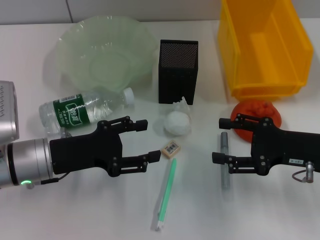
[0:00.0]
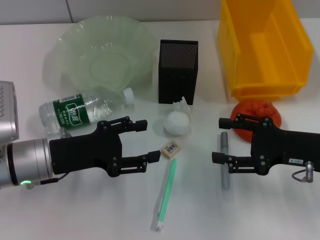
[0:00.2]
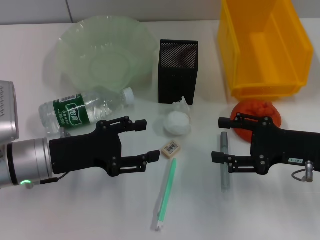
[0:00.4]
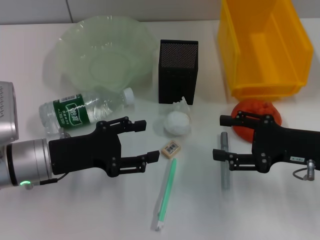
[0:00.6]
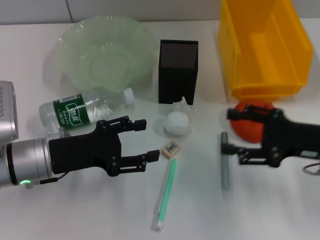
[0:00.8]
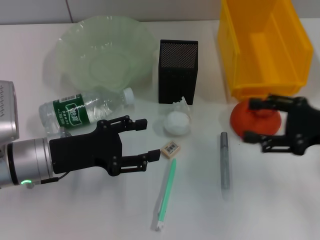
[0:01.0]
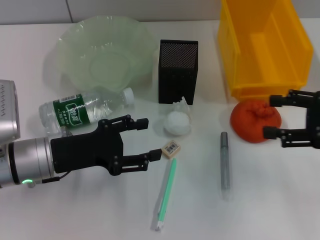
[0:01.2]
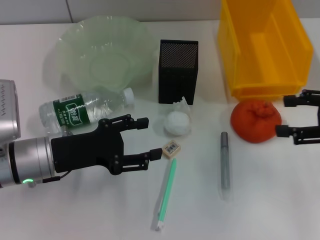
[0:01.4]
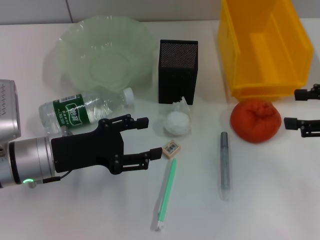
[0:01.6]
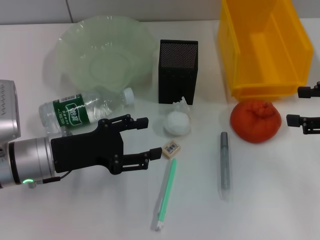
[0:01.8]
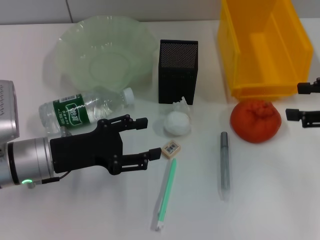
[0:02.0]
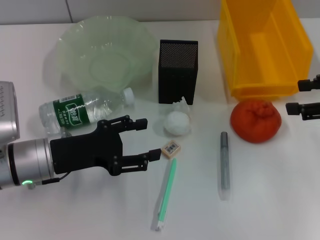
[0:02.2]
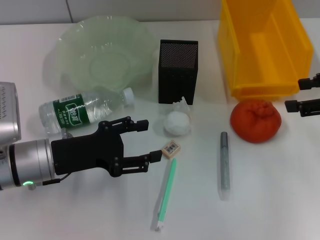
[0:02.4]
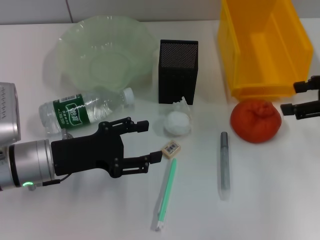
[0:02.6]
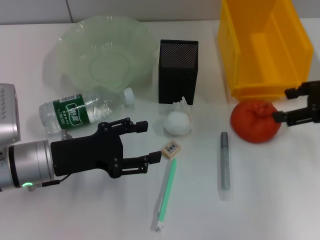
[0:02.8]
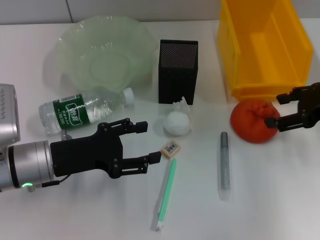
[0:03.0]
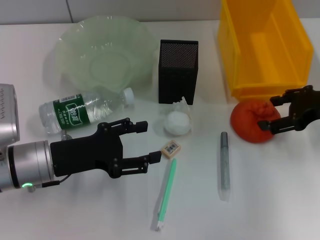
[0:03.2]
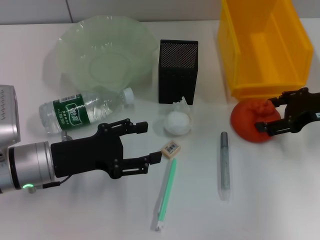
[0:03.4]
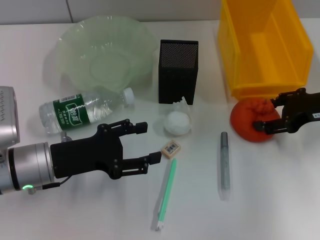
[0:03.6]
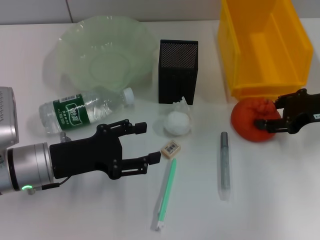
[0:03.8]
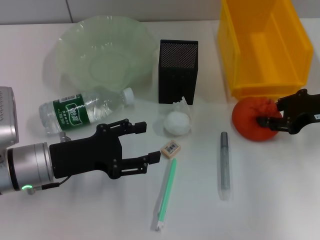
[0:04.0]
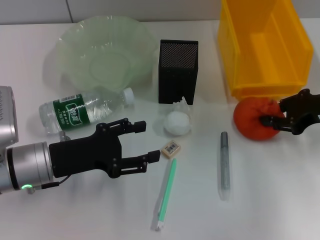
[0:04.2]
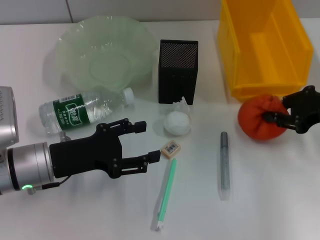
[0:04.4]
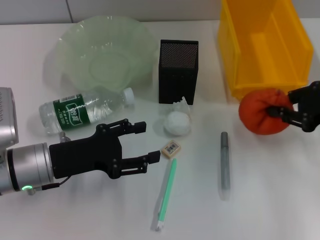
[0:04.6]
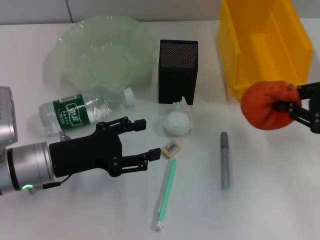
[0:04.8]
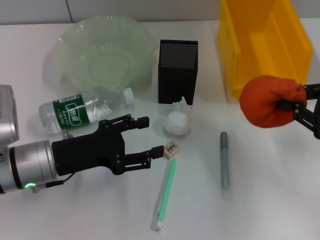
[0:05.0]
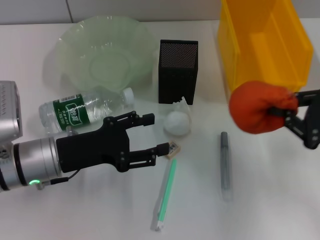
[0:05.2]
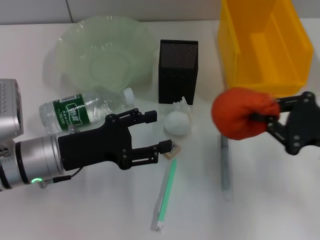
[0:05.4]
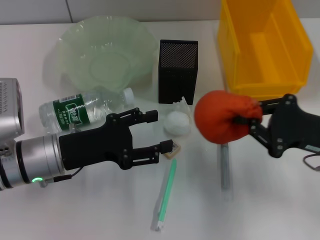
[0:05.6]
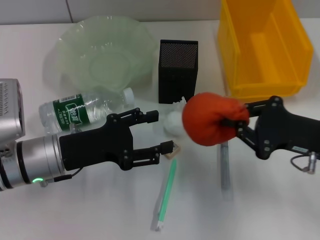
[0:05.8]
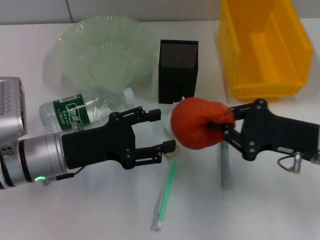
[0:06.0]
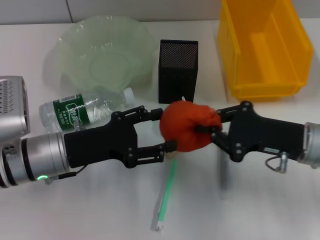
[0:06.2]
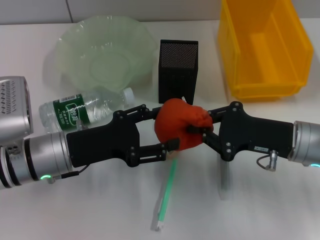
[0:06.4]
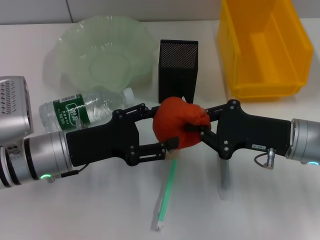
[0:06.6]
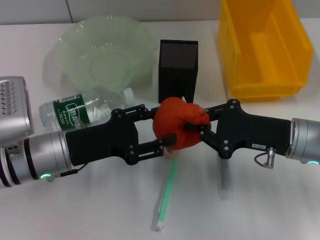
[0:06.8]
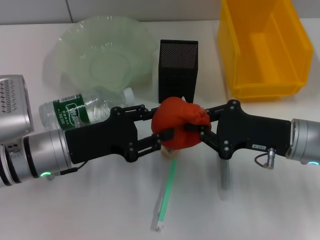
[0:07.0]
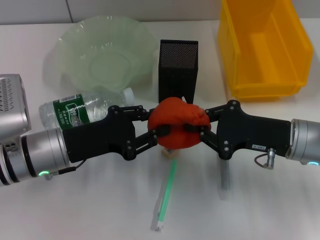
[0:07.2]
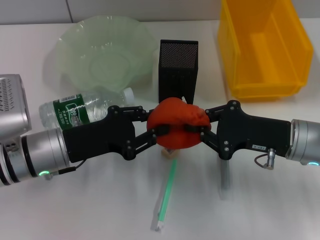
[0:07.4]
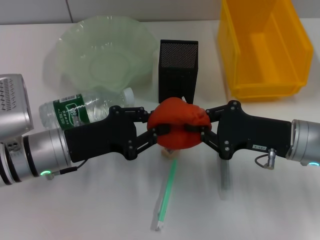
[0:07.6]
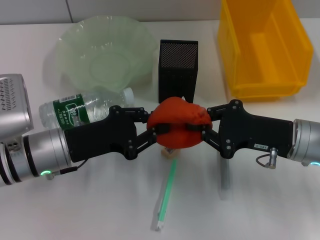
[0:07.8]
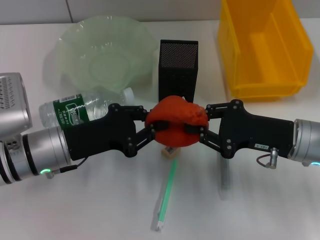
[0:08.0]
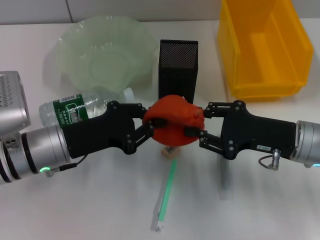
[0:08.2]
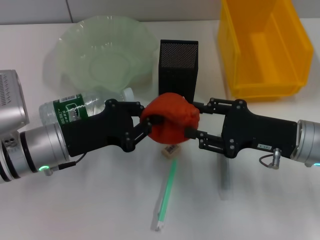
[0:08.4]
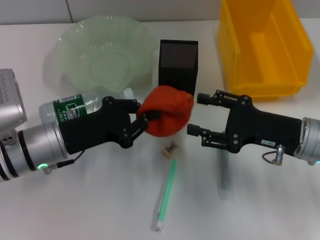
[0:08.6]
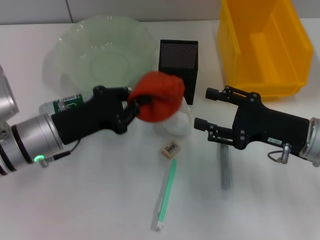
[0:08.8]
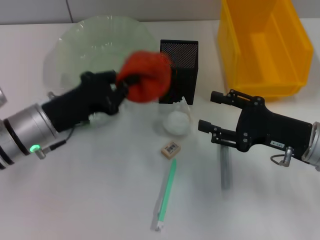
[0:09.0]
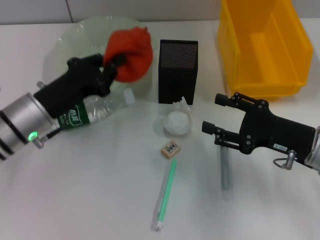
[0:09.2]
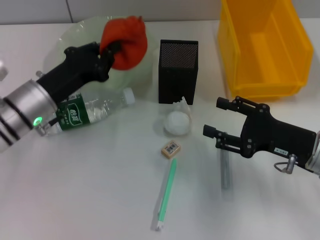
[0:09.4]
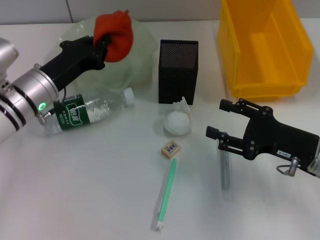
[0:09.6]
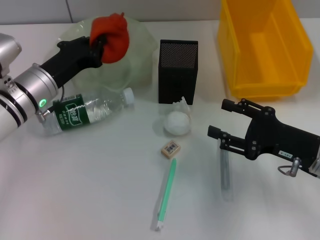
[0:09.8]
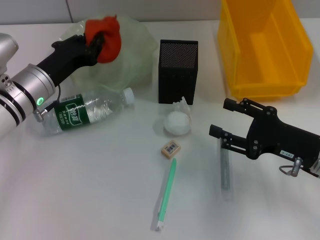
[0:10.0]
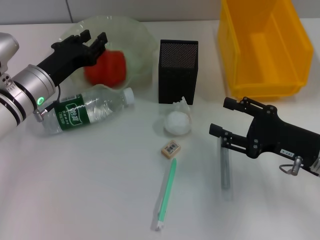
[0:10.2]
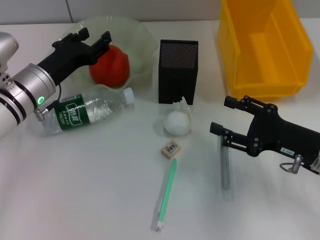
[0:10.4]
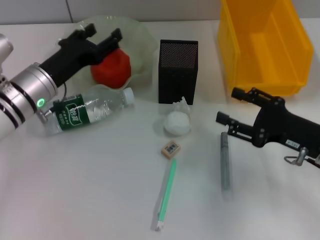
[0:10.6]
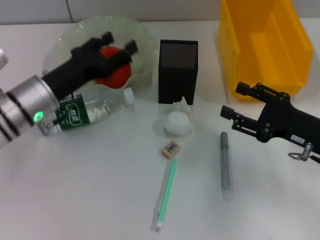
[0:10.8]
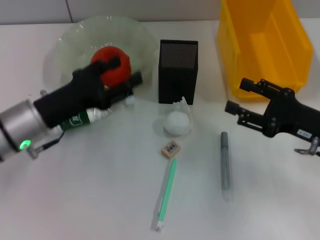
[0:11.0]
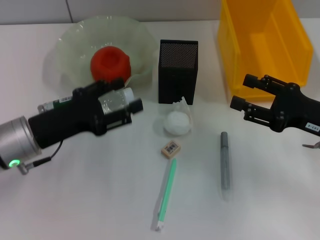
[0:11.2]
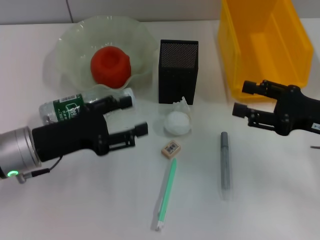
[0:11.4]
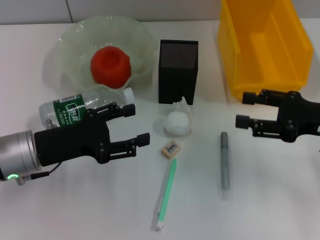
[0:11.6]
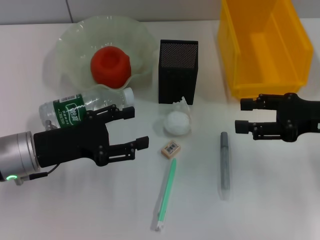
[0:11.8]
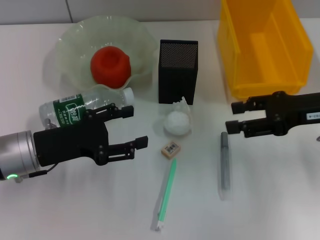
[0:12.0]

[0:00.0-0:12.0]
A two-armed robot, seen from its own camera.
Step, 0:00.0 to 0:04.2: Grab the orange with the right hand.
Step, 0:04.4 to 0:08.8: Pass the orange from the right hand to the left hand.
Step, 0:09.0 to 0:10.8: Place the orange into the fruit bowl with the left hand.
0:00.0 to 0:01.6: The right gripper goes roughly 10 cm to the right and upward.
0:01.6 to 0:03.0: The right gripper shifts roughly 5 cm forward.
0:03.0 to 0:04.4: The right gripper closes.
0:04.4 to 0:06.0: The right gripper moves to the left, backward and downward, roughly 10 cm.
0:06.0 to 0:07.6: The left gripper closes.
0:07.6 to 0:09.0: The right gripper opens.
0:09.0 to 0:10.4: The left gripper goes roughly 5 cm forward, and opens.
0:10.4 to 0:12.0: The right gripper shifts about 10 cm upward and forward. Meanwhile the left gripper travels backward by some 10 cm, and opens its fingers.

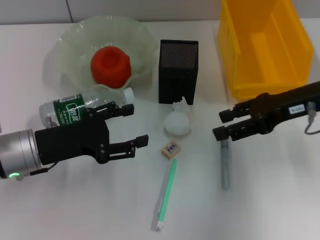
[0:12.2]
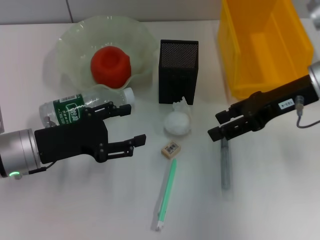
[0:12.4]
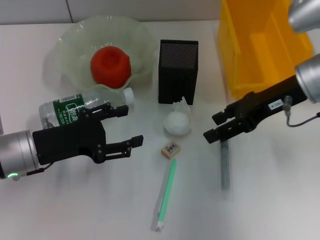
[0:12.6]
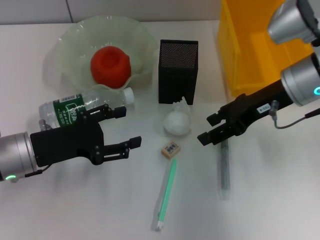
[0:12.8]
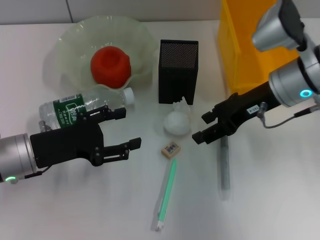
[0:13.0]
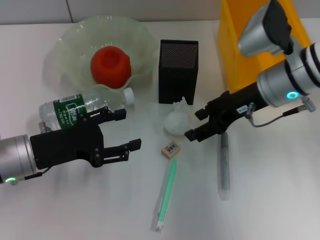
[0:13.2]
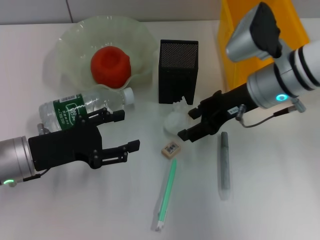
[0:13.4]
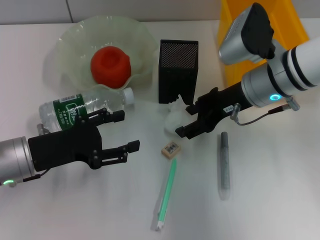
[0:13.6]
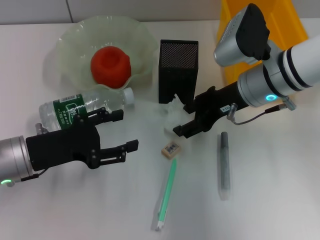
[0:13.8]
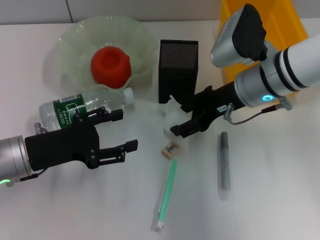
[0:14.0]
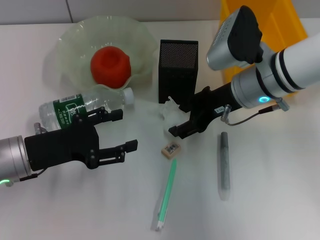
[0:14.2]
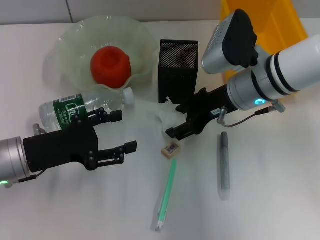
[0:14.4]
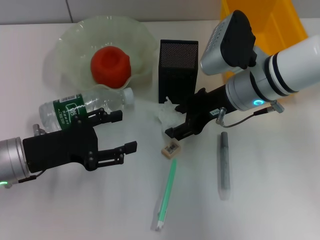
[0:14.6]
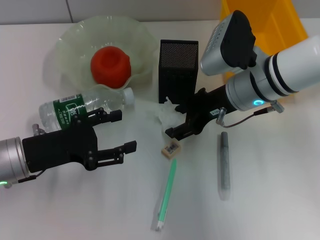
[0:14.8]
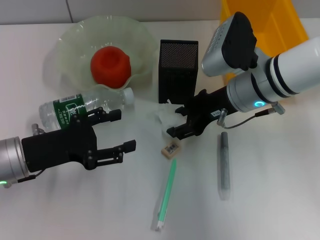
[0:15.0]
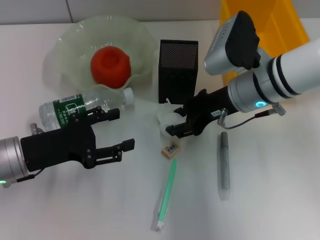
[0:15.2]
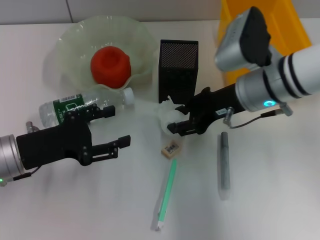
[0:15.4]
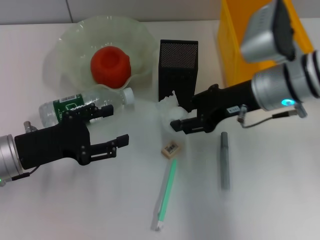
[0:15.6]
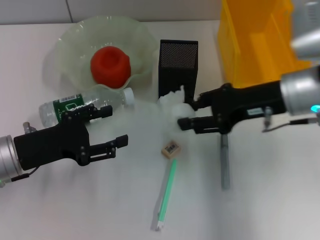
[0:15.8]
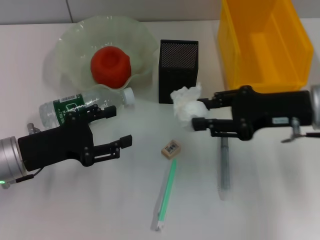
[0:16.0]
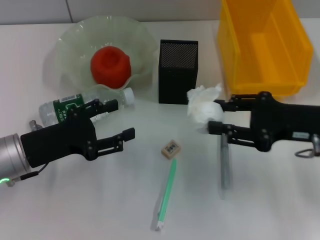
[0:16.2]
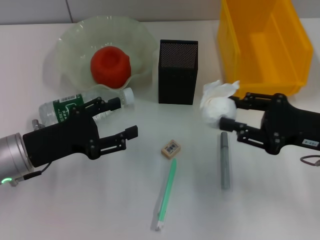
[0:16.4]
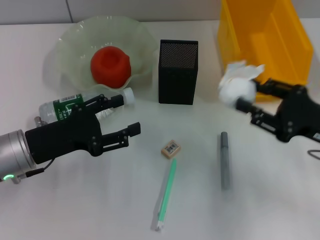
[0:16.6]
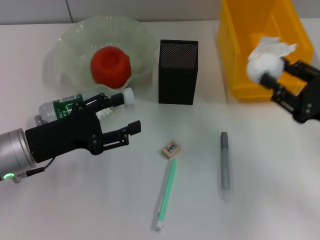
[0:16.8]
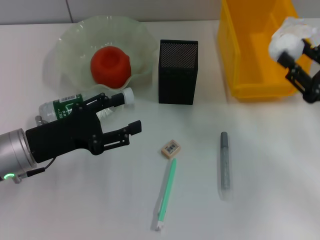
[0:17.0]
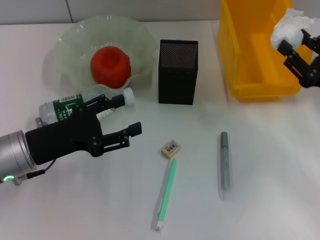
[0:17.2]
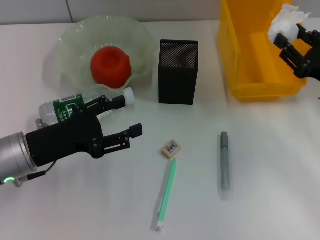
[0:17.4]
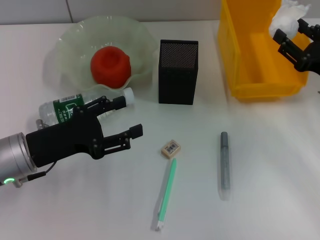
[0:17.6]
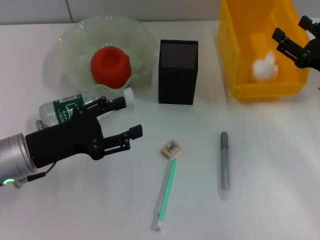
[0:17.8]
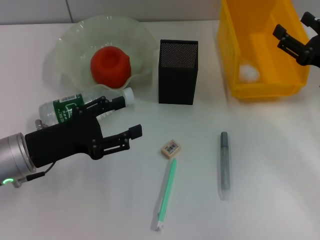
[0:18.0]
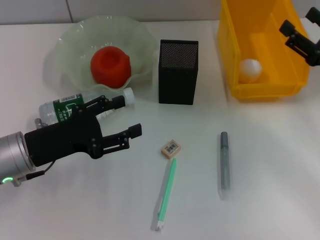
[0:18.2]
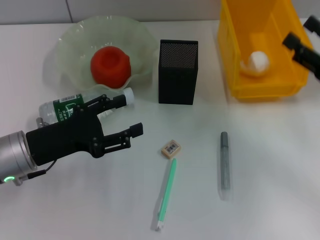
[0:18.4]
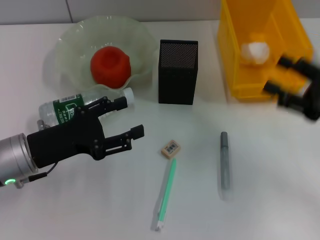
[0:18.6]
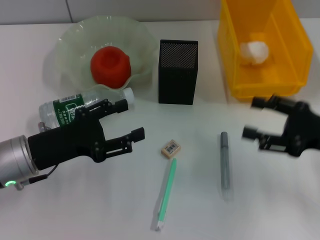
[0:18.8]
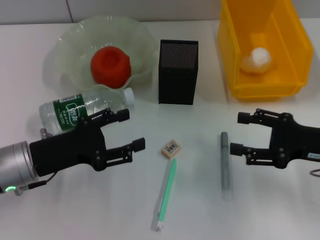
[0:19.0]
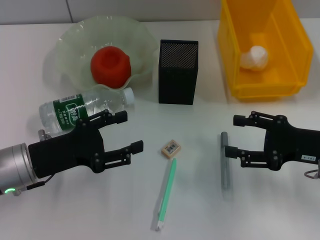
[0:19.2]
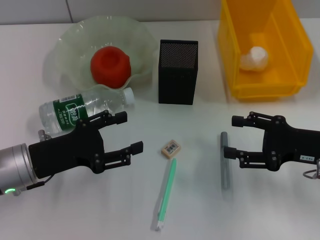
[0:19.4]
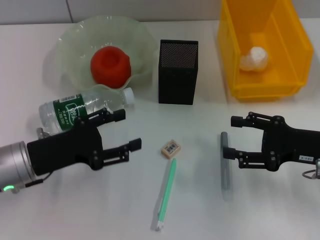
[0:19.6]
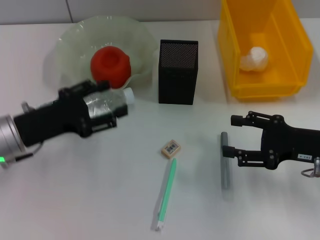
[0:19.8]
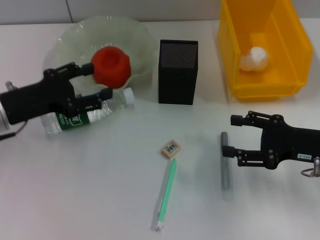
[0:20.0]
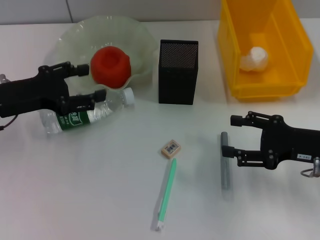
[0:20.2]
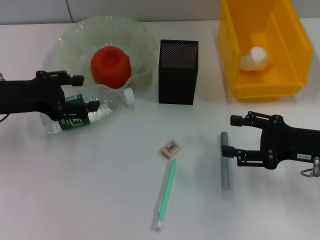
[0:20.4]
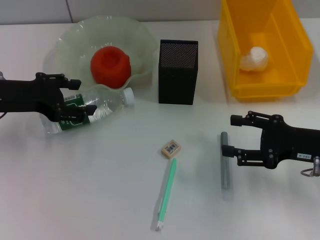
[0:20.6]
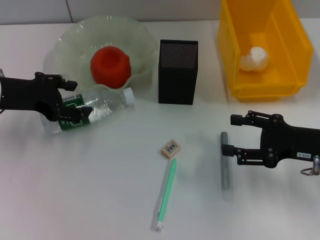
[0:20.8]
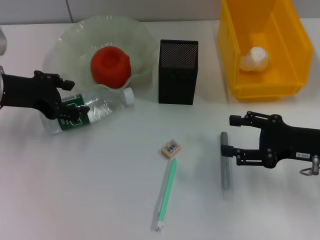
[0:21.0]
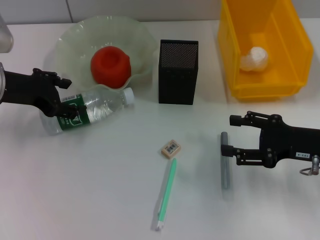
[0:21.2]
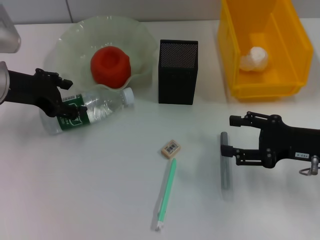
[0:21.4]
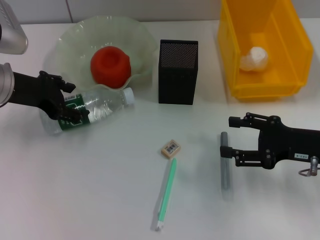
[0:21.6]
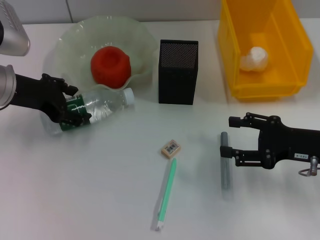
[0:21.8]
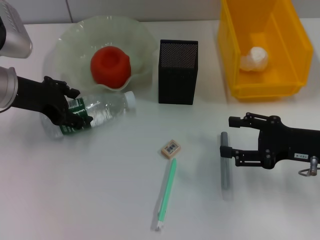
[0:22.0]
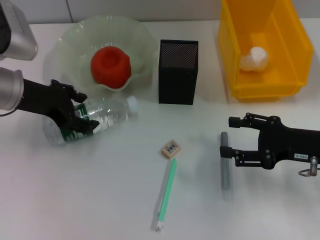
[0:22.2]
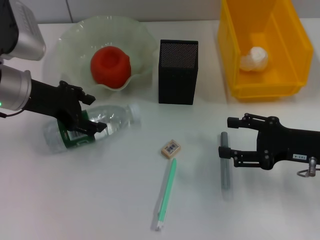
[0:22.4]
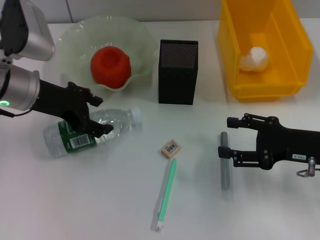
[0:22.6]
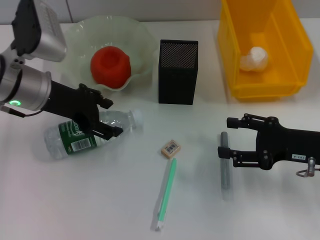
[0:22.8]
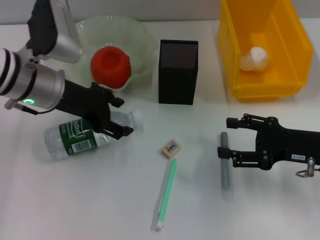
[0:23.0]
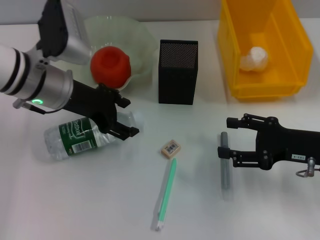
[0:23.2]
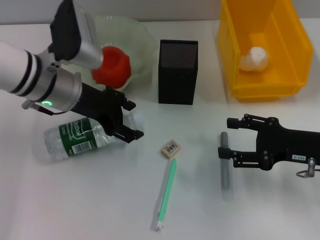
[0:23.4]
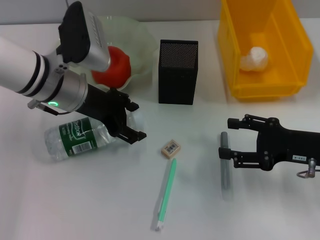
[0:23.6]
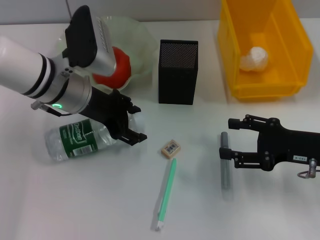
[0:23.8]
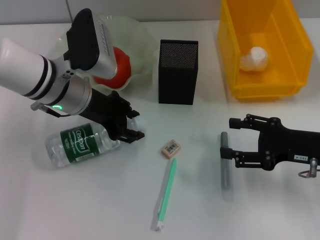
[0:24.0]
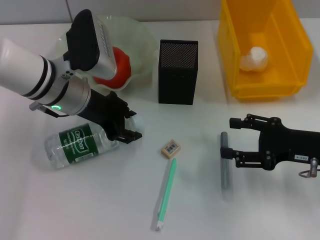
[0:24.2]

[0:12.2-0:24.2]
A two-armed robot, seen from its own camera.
Step, 0:12.2 to 0:15.0: Grab the paper ball with the right hand.
Step, 0:15.2 to 0:18.4: Place the paper ball into the trash can with the right hand.
0:12.2 to 0:13.8: The right gripper heads to the left, covering some 10 cm.
0:13.8 to 0:15.2: The grippers stay close to where they were, moving slightly.
0:15.2 to 0:16.6: The right gripper is displaced to the right and backward by roughly 20 cm.
0:16.6 to 0:18.2: The right gripper changes place by about 5 cm, and opens.
0:18.2 to 0:19.8: The right gripper shifts by about 5 cm.
0:19.8 to 0:21.2: The left gripper shifts about 10 cm forward and upward.
0:21.2 to 0:22.6: There are only small adjustments of the grippers.
0:22.6 to 0:24.2: The left gripper goes about 5 cm to the right.
